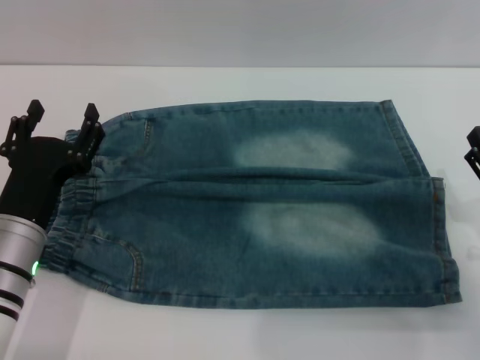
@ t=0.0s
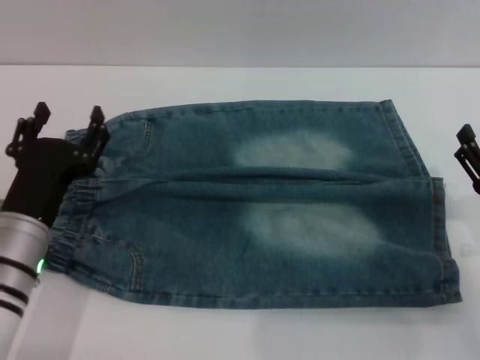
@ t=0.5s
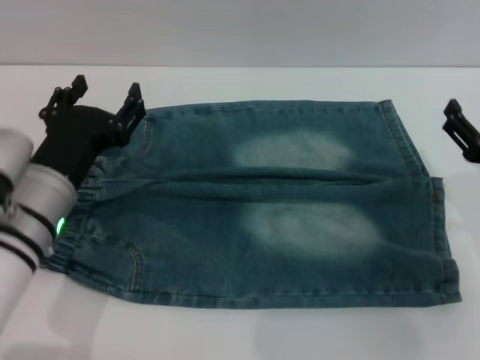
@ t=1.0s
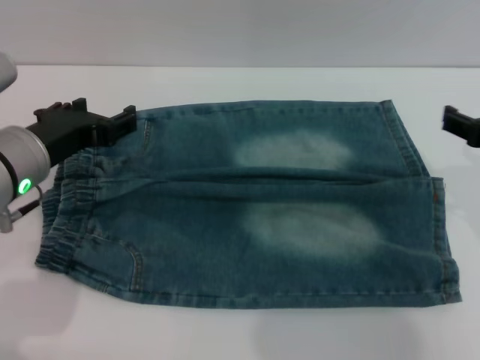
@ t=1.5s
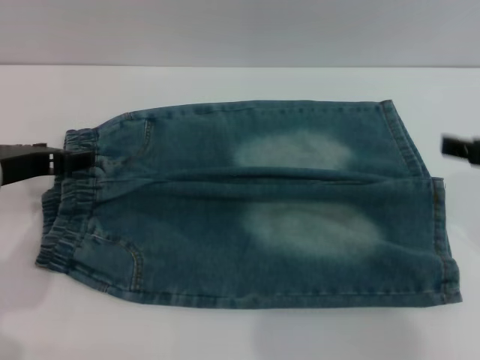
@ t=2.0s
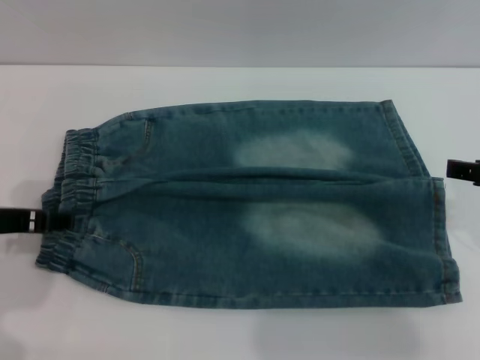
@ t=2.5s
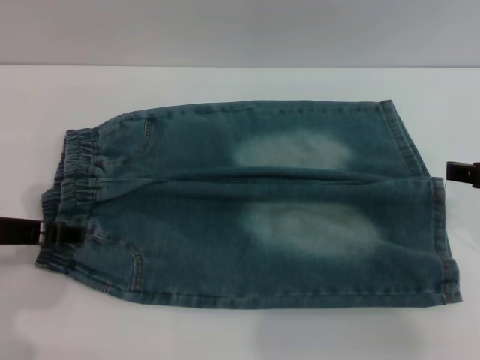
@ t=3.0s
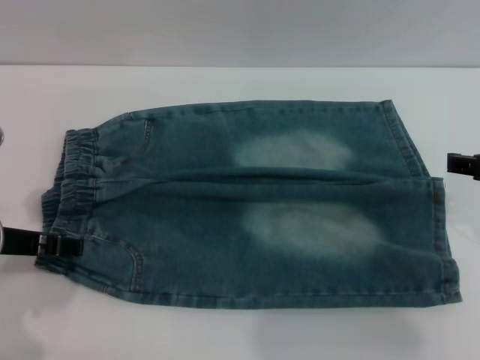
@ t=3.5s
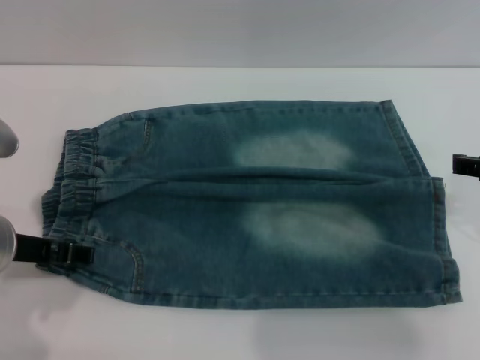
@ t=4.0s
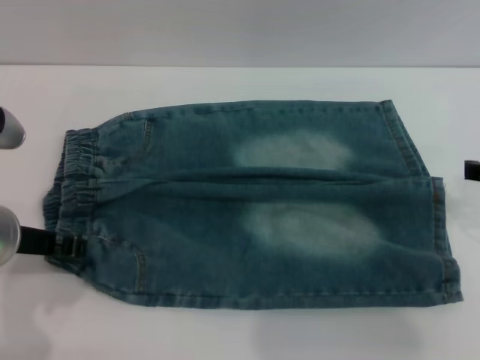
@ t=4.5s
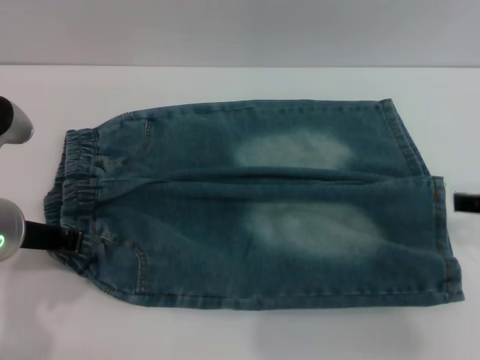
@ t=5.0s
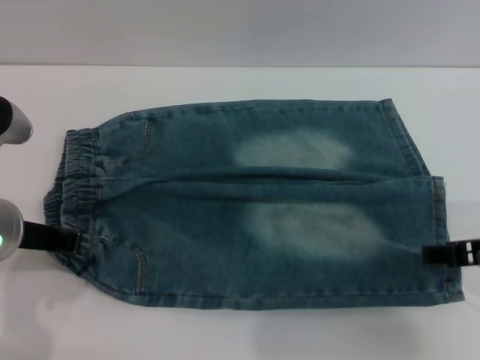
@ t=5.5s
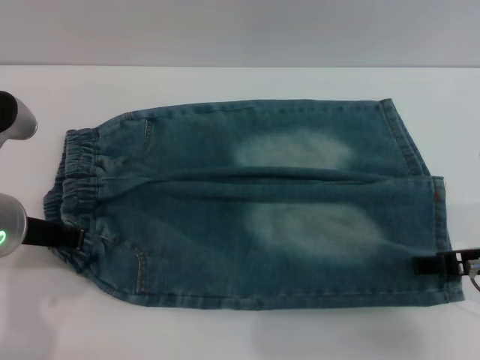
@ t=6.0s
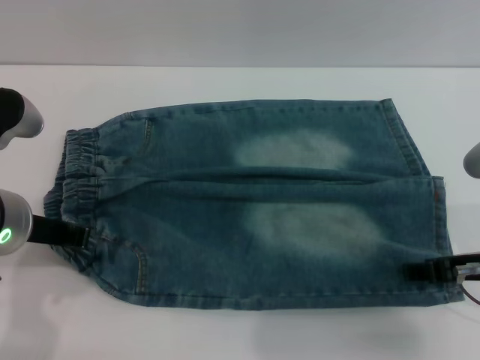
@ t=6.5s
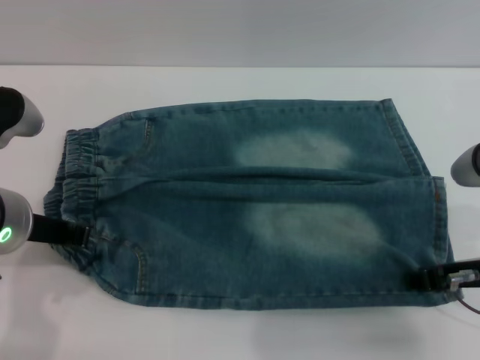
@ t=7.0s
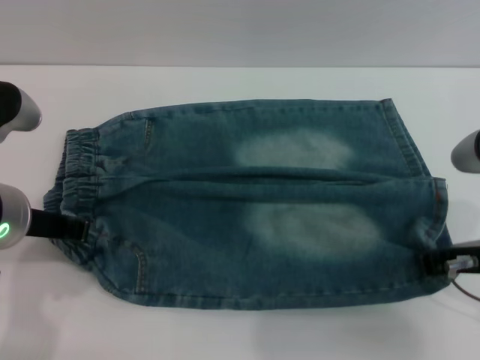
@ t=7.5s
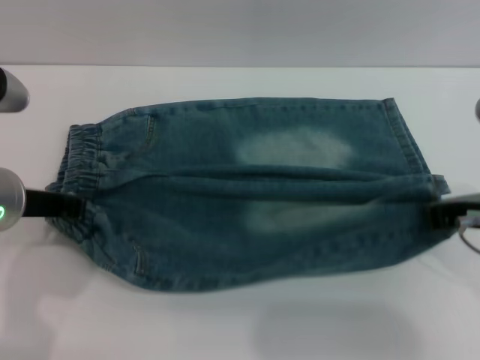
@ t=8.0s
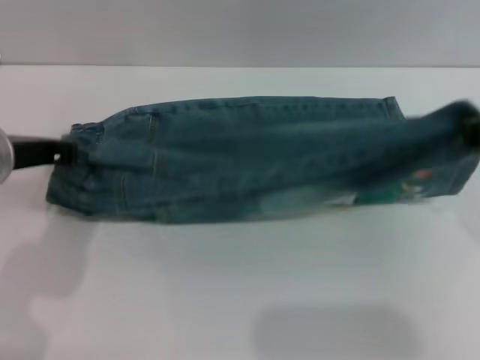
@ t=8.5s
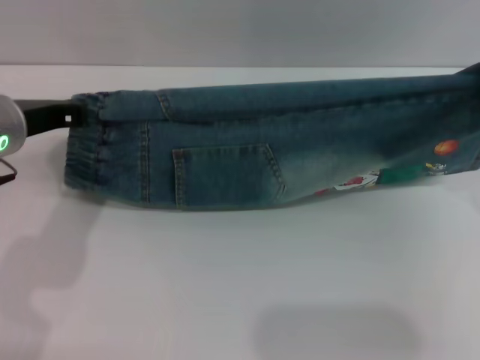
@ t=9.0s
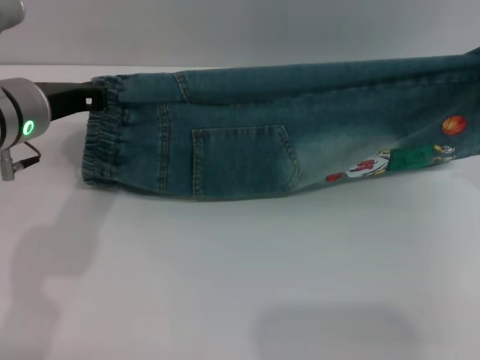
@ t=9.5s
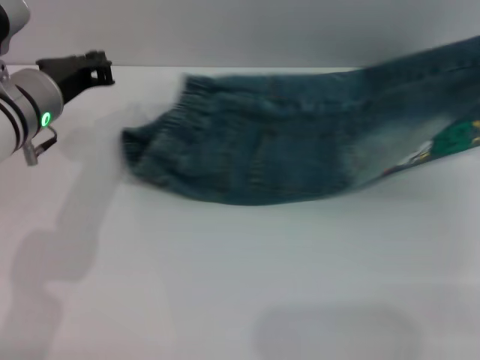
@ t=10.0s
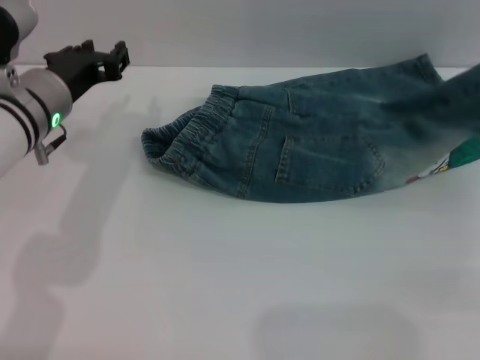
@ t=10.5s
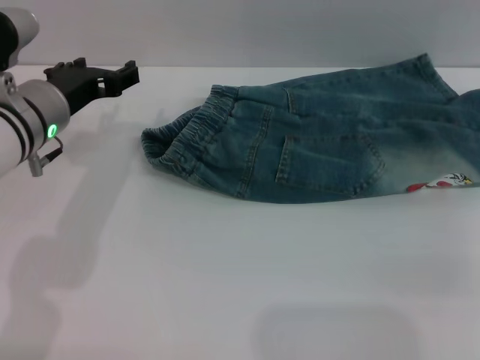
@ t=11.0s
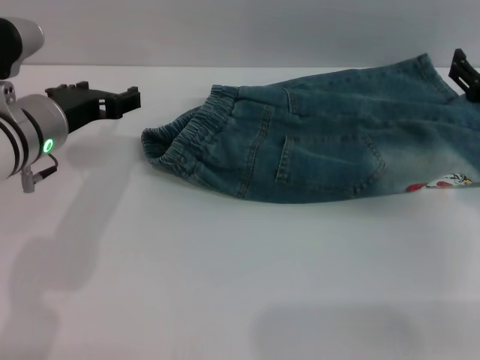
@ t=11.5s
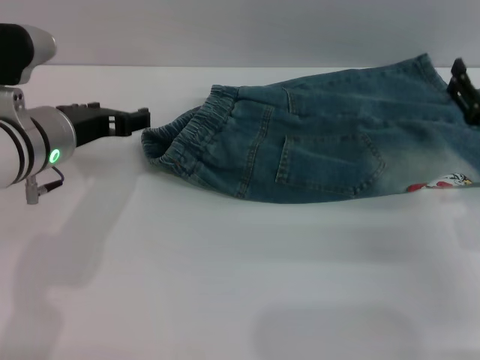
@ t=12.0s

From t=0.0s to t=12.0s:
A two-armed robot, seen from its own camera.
From t=0.0s to t=2.0s: The left gripper travels upward and forward by approximately 10 cm. Meanwhile the right gripper goes approximately 15 cm upward.
From t=4.0s to t=6.0s: The right gripper shifts by about 5 cm. Meanwhile the left gripper closes its fingers.
From t=6.0s to t=8.0s: The right gripper closes.
From t=8.0s to t=10.0s: The right gripper travels to the right and forward by approximately 15 cm, while the left gripper is displaced forward by approximately 10 cm.
From t=10.0s to t=12.0s: The right gripper shifts about 5 cm downward, and opens. Meanwhile the left gripper opens its fingers.

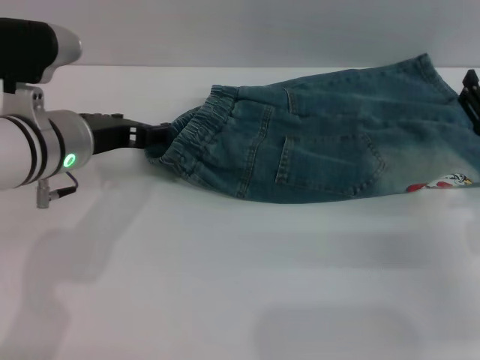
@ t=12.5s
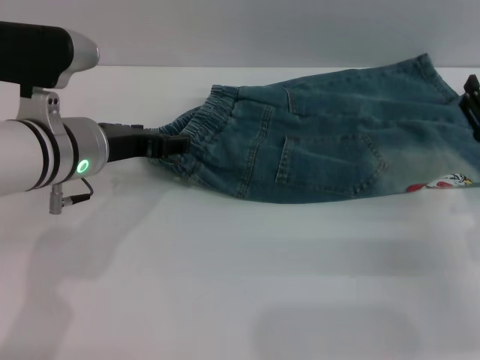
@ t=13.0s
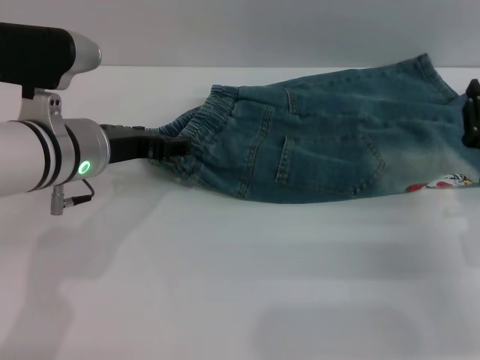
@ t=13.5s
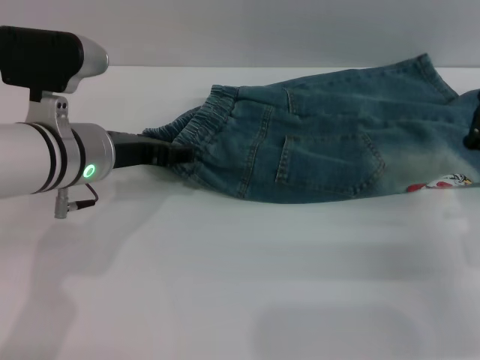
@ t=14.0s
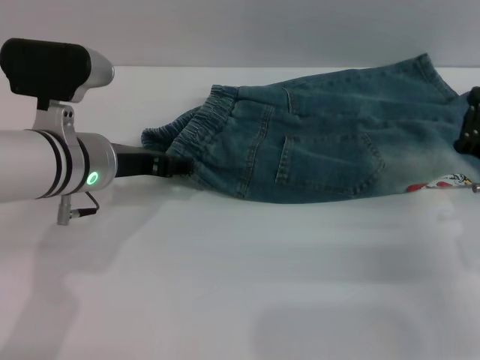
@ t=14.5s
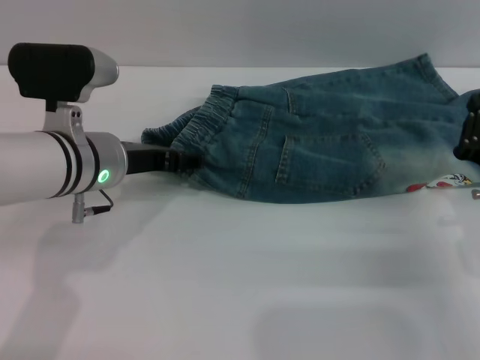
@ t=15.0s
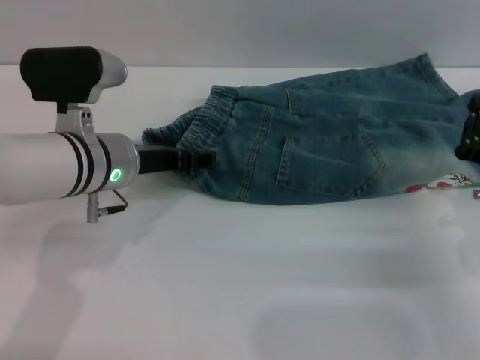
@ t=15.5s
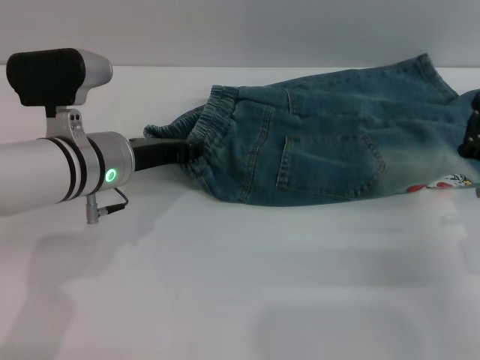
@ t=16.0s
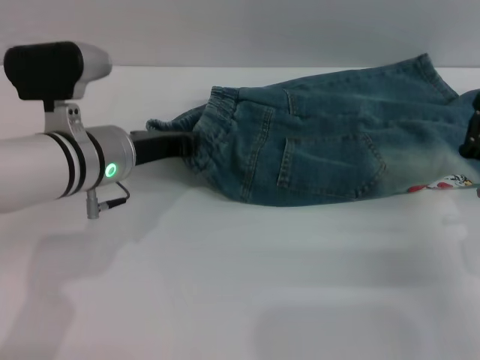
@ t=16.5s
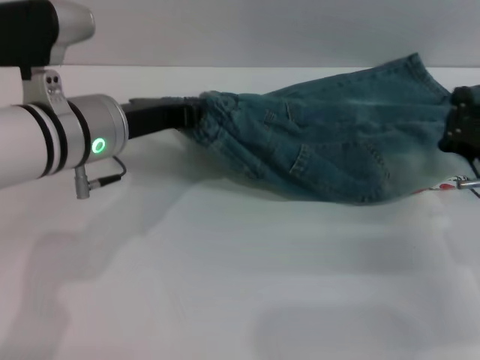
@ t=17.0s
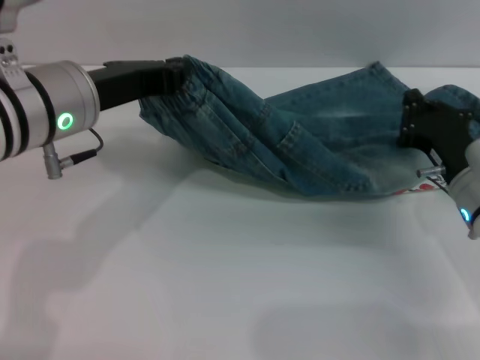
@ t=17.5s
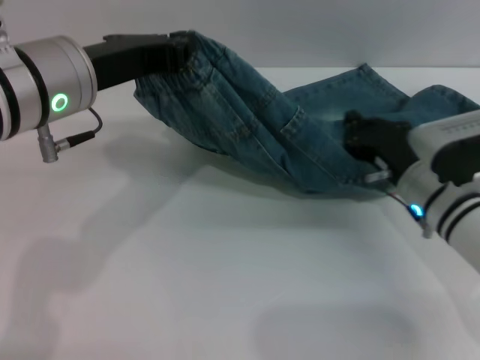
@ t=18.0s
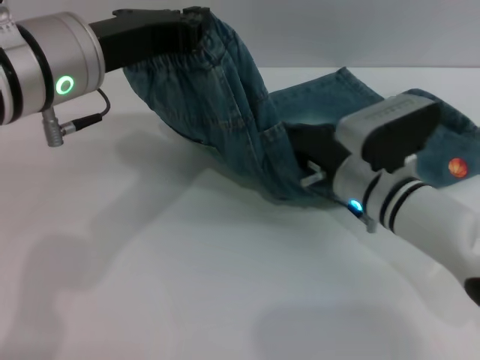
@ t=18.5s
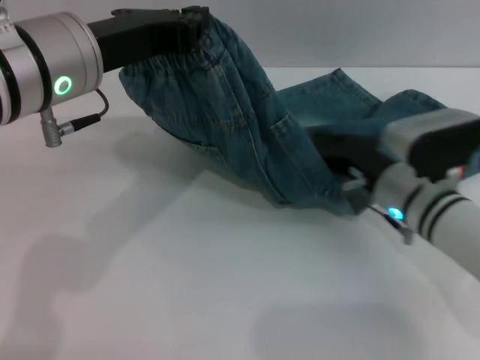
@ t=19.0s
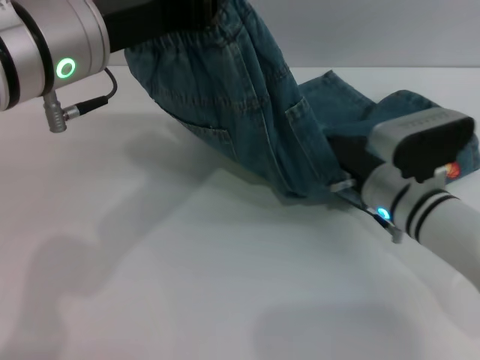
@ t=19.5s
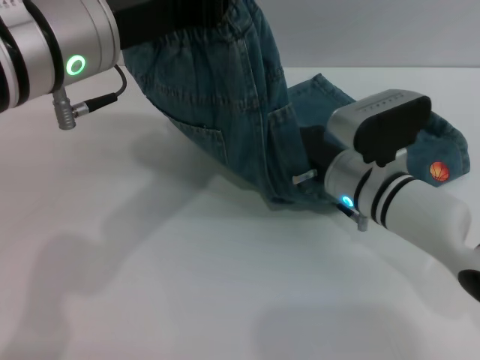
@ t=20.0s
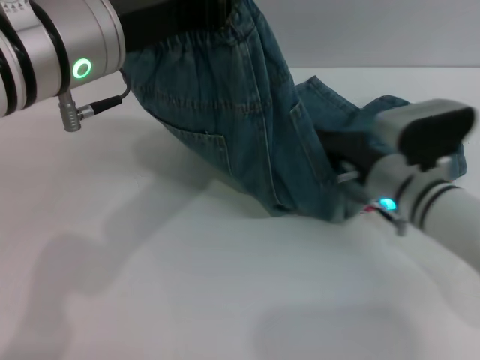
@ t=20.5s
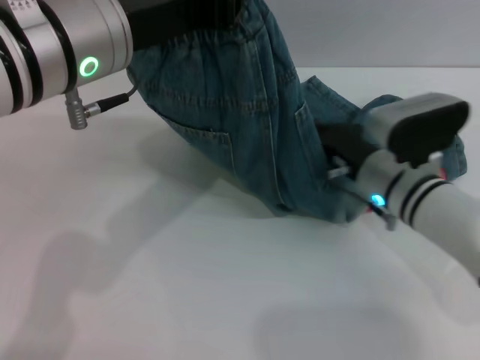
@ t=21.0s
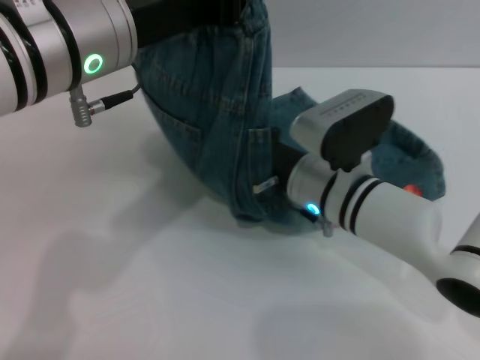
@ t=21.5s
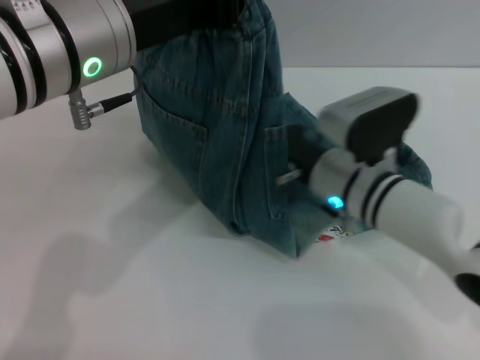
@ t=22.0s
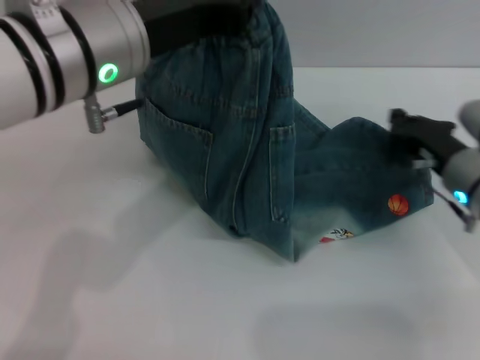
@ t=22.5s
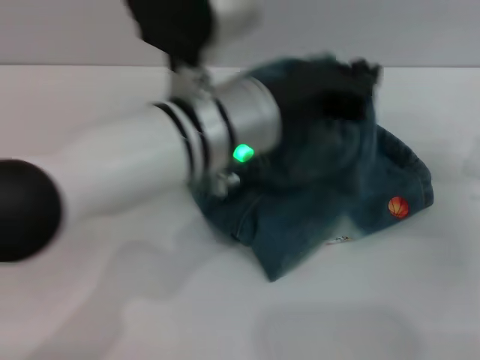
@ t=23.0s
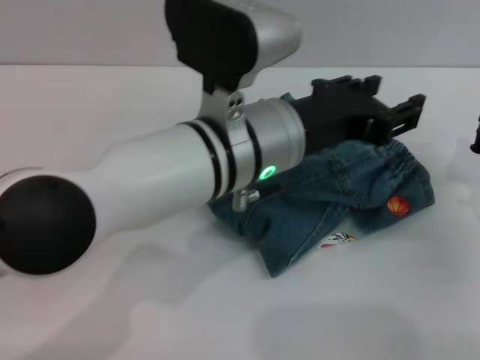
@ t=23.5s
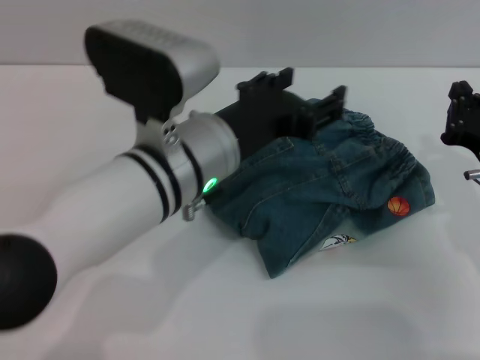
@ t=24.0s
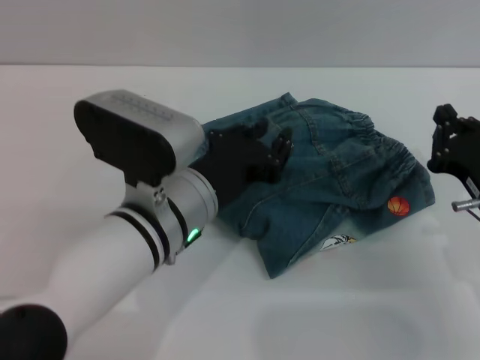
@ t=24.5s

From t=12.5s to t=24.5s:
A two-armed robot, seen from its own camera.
Step, from t=14.5s to t=23.5s: Fold the pants from left to right with the left gripper.
From t=12.5s to t=14.5s: The right gripper closes up.
From t=14.5s to t=16.5s: The left gripper closes up.
From t=16.5s to t=18.5s: The left gripper moves upward, some 15 cm; the right gripper is displaced to the left and forward by approximately 15 cm.
From t=18.5s to t=20.5s: The right gripper moves left and right over some 5 cm, changing direction 2 times.
From t=20.5s to t=22.5s: The right gripper heads to the right, covering approximately 5 cm.
From t=22.5s to t=24.5s: The right gripper goes about 10 cm backward. The left gripper moves downward, roughly 15 cm, and opens.

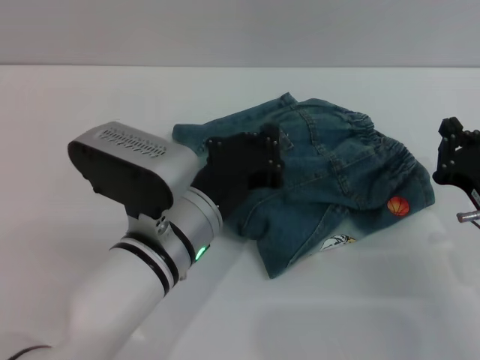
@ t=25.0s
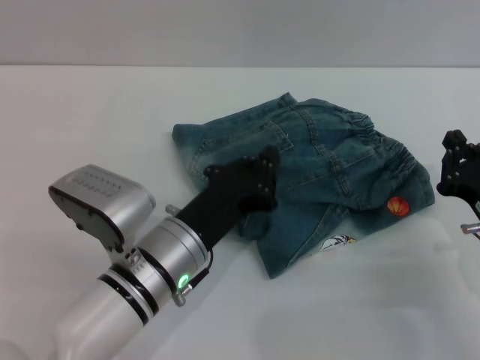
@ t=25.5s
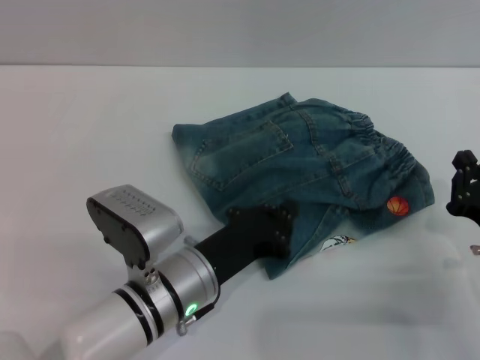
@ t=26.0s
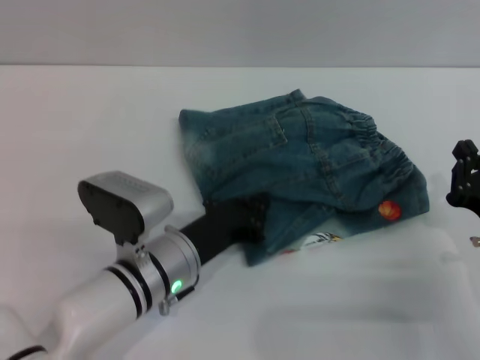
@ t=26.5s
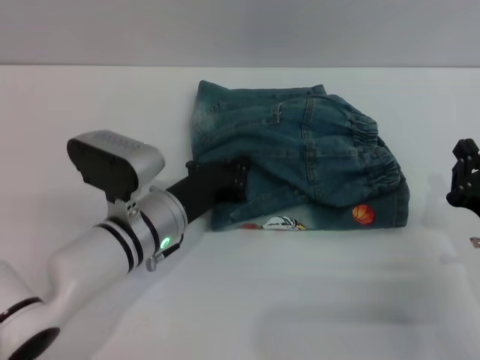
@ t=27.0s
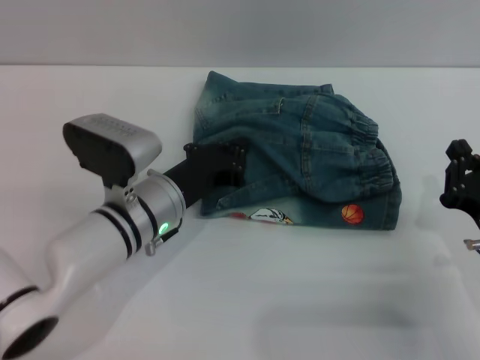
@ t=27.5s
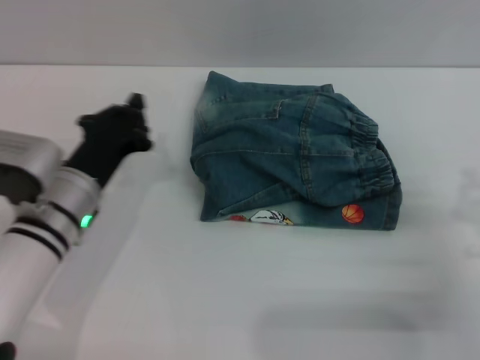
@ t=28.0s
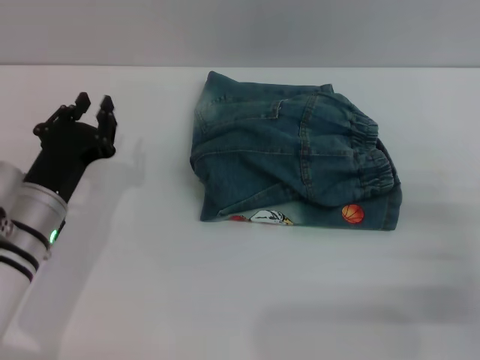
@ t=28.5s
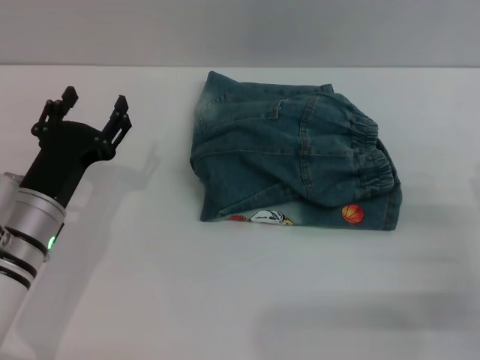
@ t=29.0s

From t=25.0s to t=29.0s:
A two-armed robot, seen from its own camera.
Step, from t=25.0s to t=27.5s: Place the folded trousers onto the center area with the left grippers.
From t=25.0s to t=27.0s: The left gripper shifts approximately 10 cm downward and forward.
From t=27.0s to t=29.0s: The left gripper shifts some 10 cm to the left, and opens up, while the right gripper opens.
